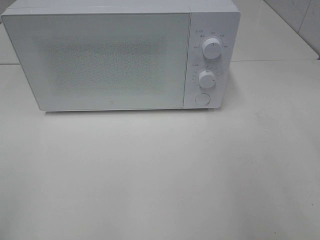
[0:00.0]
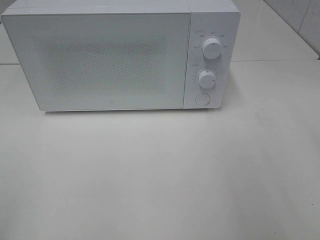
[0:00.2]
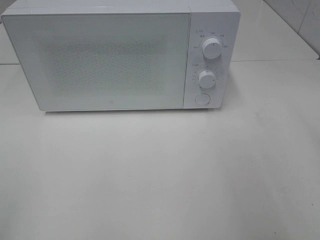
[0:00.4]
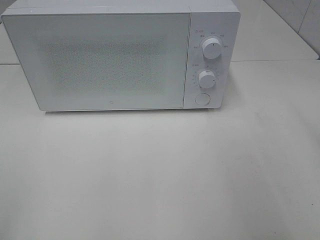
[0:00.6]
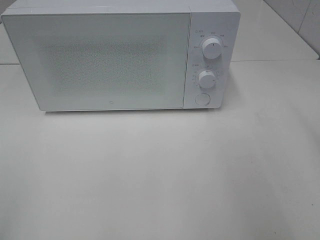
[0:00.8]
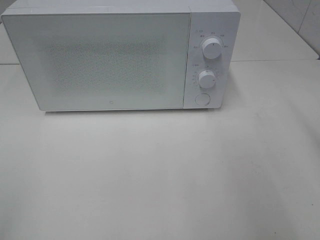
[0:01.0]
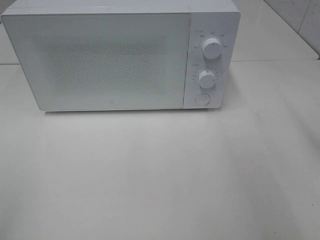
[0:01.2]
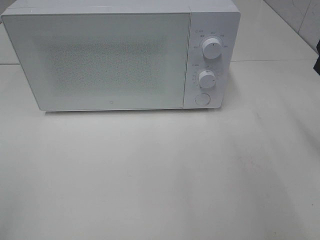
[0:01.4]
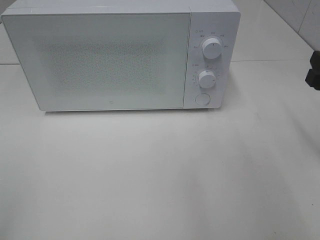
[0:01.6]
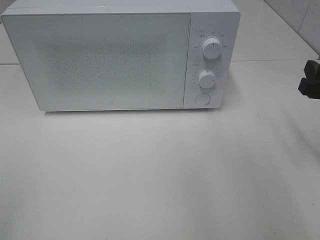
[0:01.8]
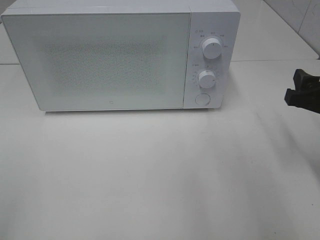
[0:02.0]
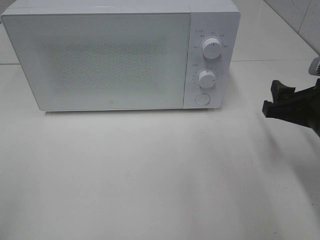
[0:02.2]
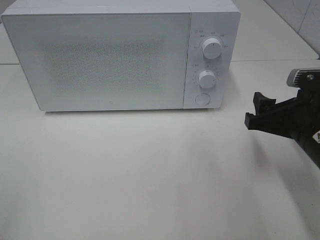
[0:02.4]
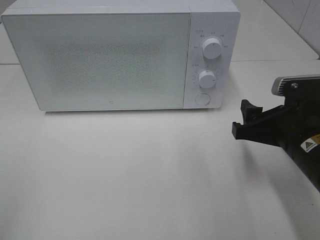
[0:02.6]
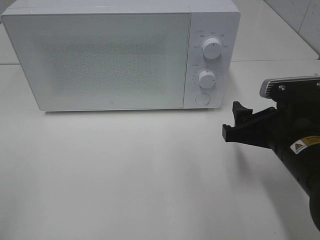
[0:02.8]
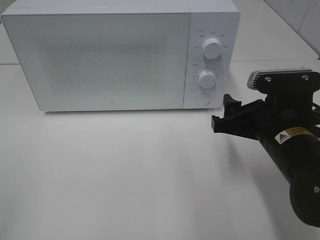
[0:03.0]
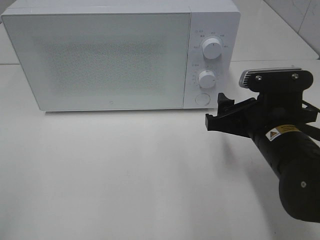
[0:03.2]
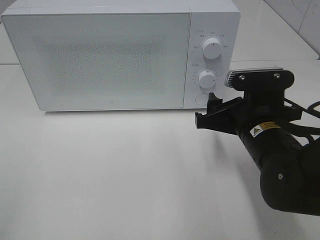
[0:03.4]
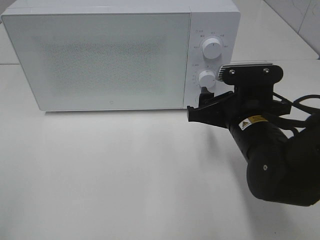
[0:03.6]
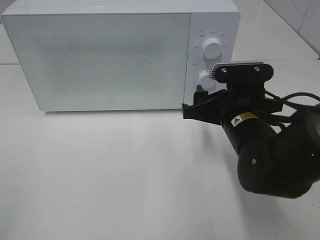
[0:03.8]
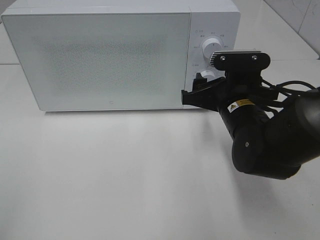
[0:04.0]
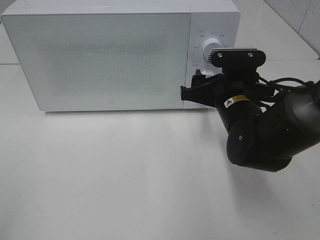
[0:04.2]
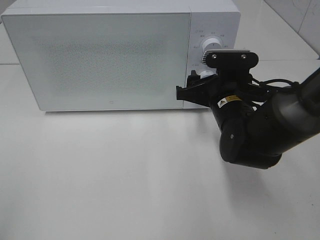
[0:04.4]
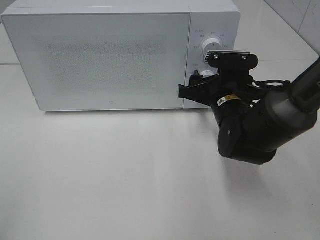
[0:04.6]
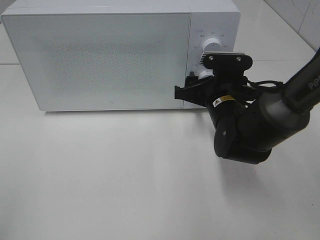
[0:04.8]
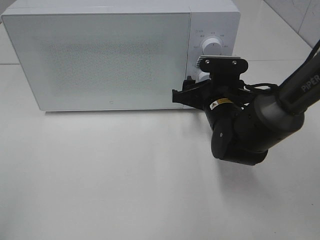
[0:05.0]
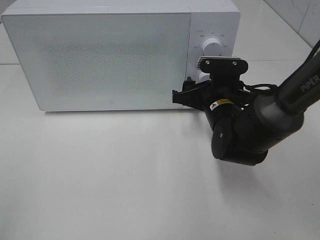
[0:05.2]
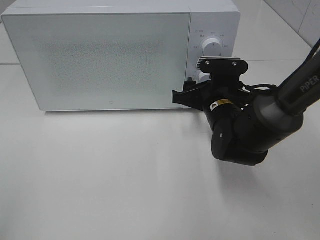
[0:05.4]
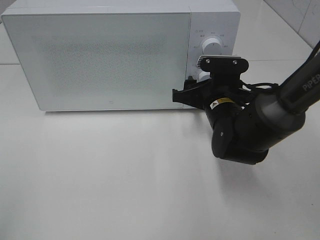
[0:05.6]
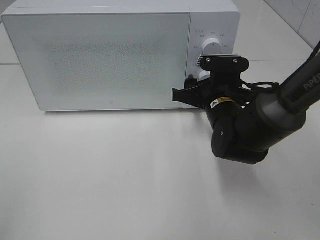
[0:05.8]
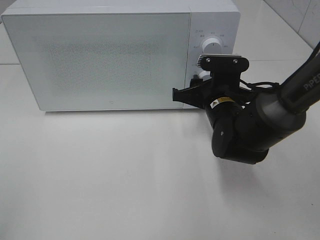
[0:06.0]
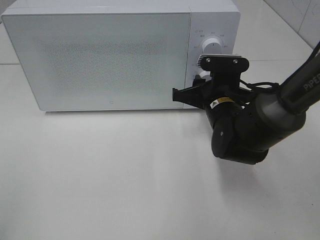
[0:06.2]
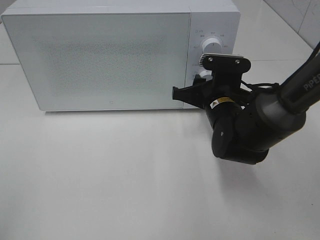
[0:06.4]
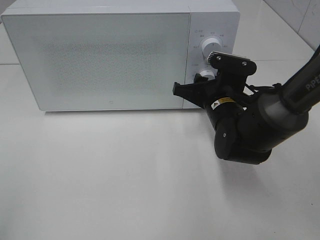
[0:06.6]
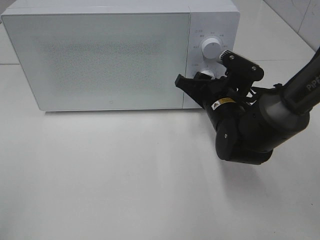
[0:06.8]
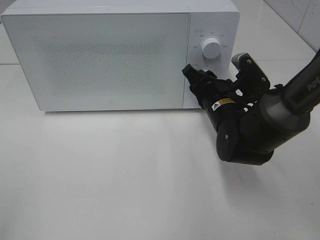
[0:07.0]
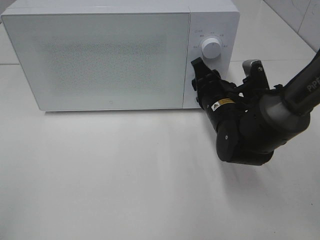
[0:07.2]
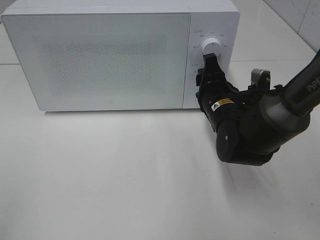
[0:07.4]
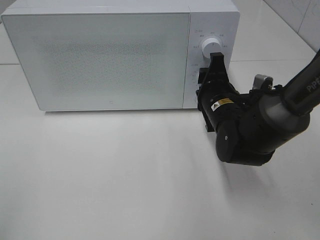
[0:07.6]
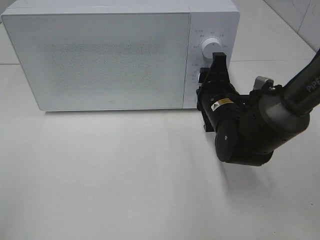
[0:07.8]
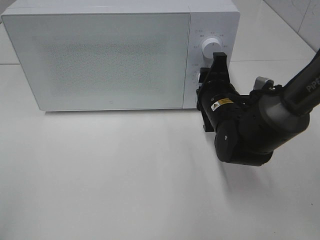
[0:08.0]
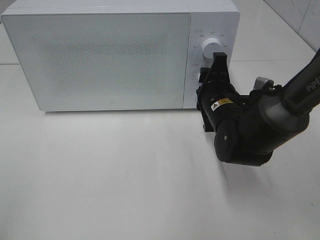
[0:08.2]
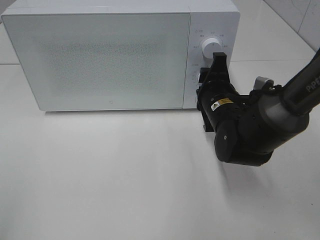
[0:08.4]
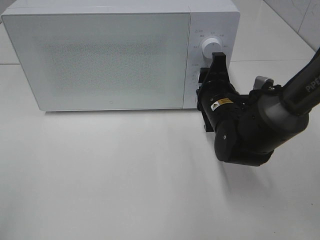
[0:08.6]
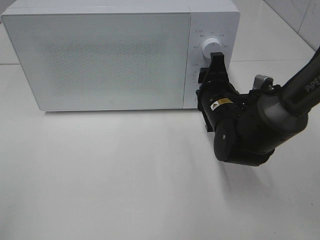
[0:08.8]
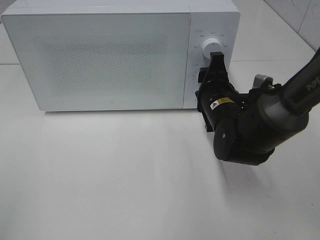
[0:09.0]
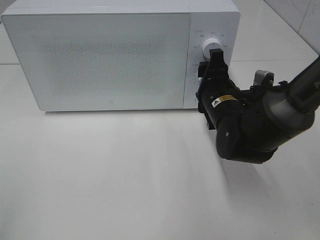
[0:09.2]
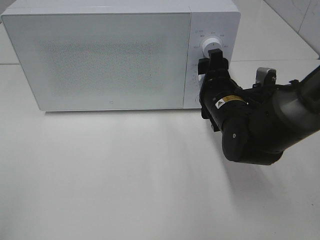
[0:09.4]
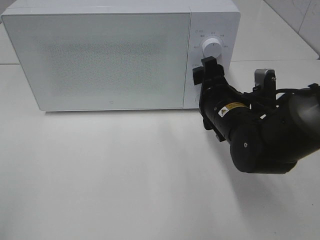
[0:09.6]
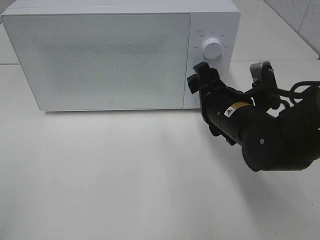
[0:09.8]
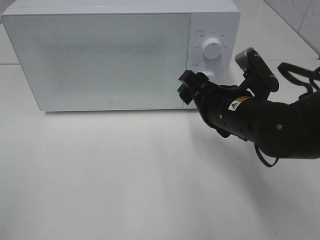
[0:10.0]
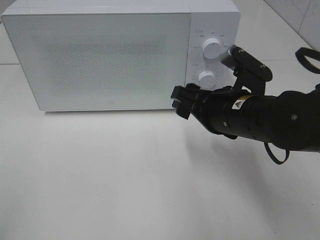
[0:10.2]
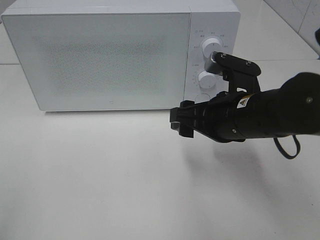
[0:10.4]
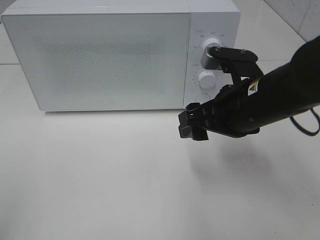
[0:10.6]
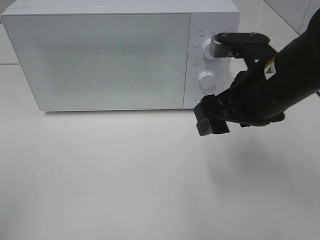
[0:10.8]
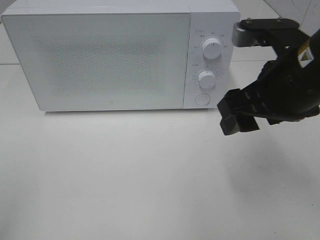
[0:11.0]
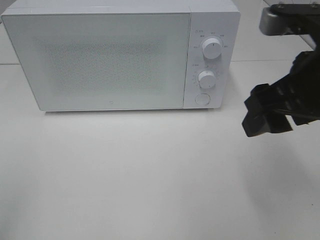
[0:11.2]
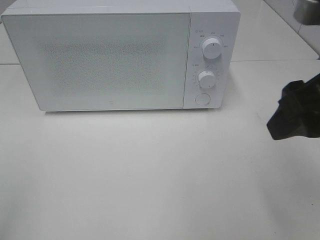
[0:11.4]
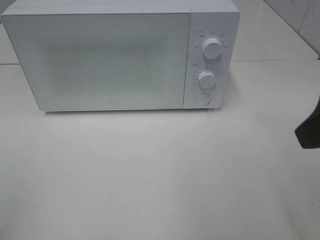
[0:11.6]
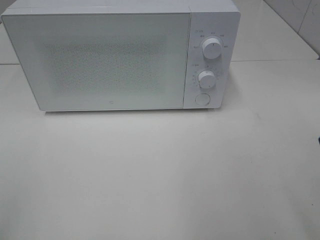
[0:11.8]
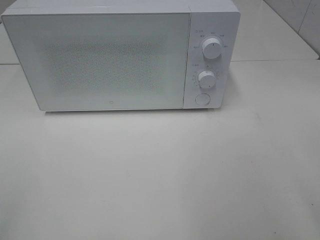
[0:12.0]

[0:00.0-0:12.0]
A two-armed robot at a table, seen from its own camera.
Task of the whole recording: Heat the burger.
Step, 0:00.0 to 0:09.2: Right hand: twist timer button.
0:00.0 to 0:01.6: The right gripper heads forward and downward, covering roughly 15 cm.
0:01.6 to 0:03.0: The right gripper shifts some 15 cm to the left.
0:03.0 to 0:04.4: The right gripper is displaced forward by some 10 cm.
0:04.4 to 0:06.0: The grippers make only small movements.
0:07.6 to 0:09.0: Both grippers stay about where they are.
0:09.0 to 0:10.4: The right gripper travels backward and upward by some 10 cm.
0:10.4 to 0:12.0: The right gripper moves backward, upward and to the right, approximately 25 cm.

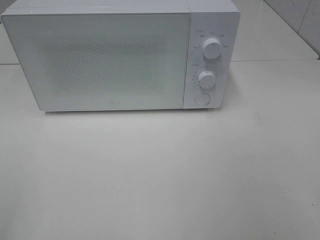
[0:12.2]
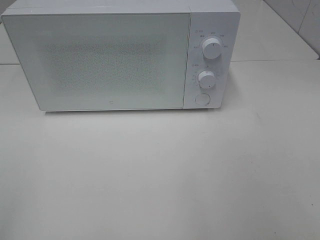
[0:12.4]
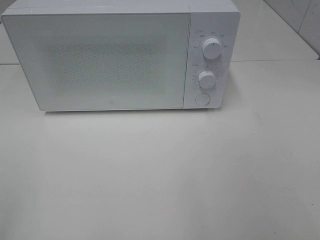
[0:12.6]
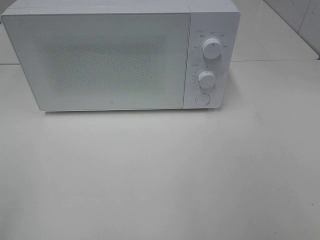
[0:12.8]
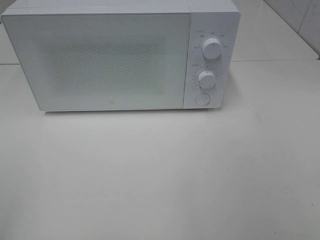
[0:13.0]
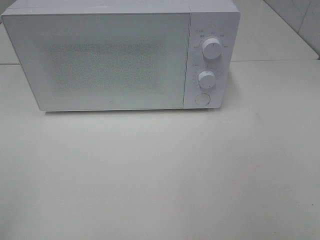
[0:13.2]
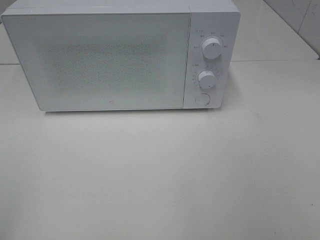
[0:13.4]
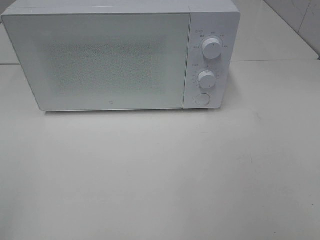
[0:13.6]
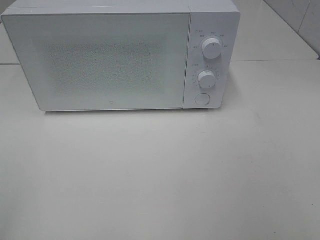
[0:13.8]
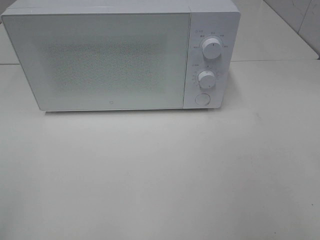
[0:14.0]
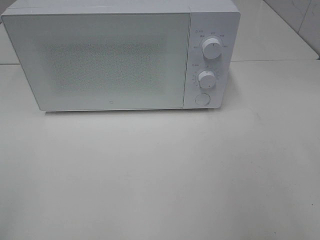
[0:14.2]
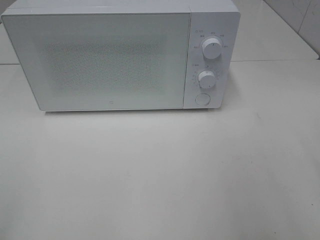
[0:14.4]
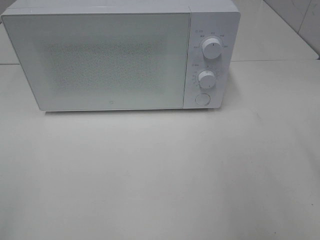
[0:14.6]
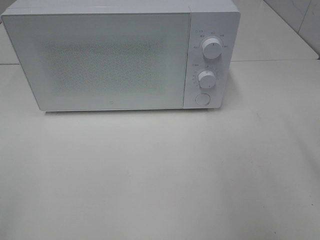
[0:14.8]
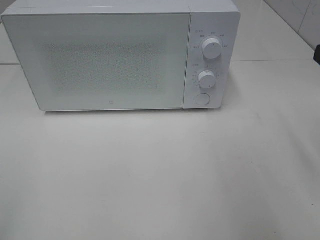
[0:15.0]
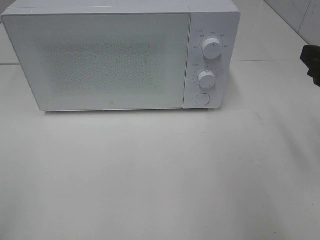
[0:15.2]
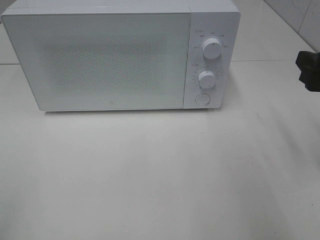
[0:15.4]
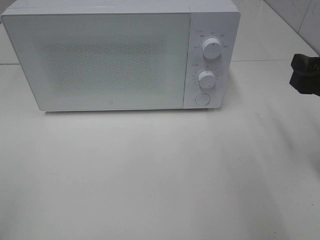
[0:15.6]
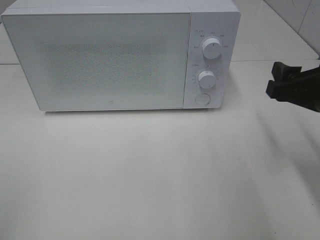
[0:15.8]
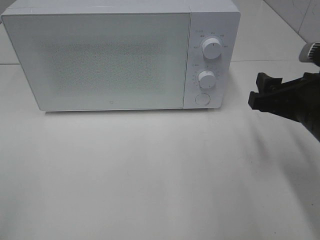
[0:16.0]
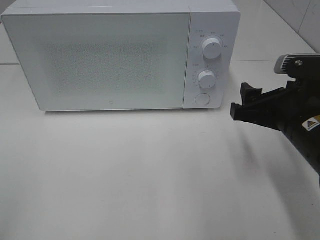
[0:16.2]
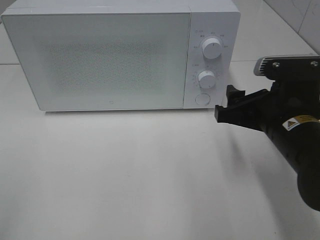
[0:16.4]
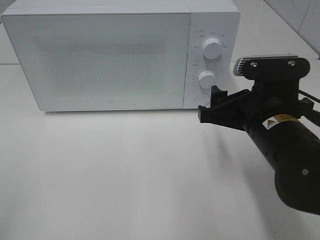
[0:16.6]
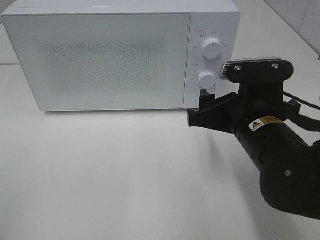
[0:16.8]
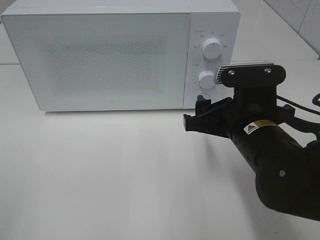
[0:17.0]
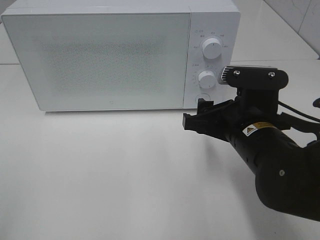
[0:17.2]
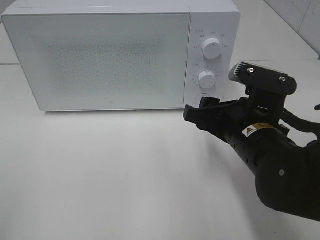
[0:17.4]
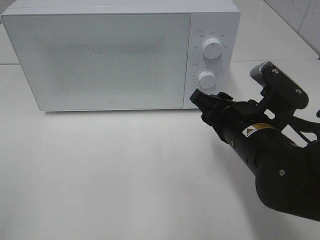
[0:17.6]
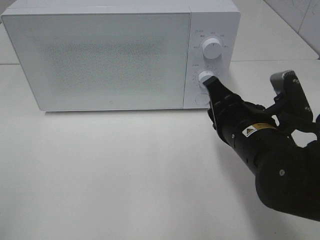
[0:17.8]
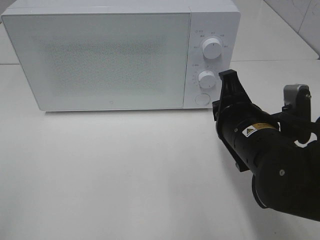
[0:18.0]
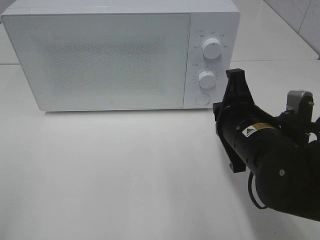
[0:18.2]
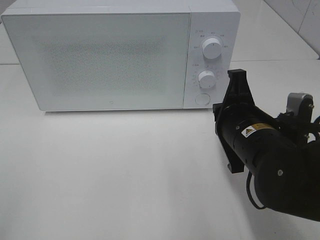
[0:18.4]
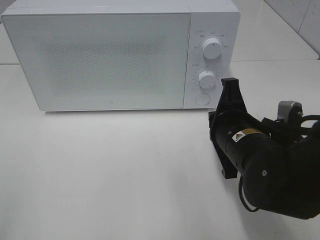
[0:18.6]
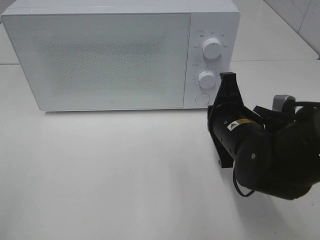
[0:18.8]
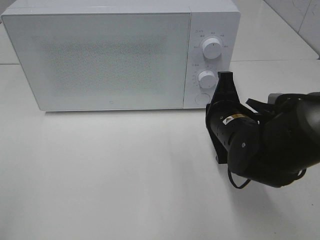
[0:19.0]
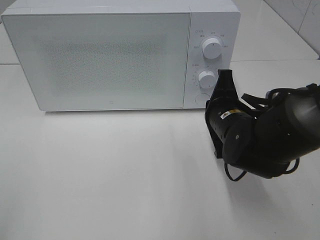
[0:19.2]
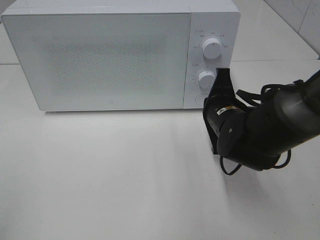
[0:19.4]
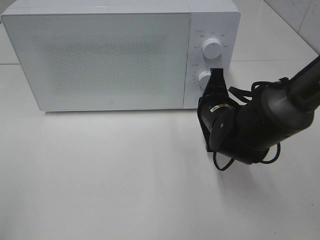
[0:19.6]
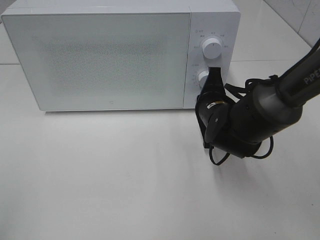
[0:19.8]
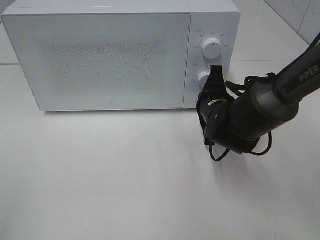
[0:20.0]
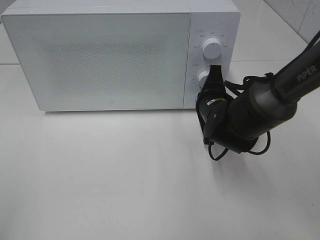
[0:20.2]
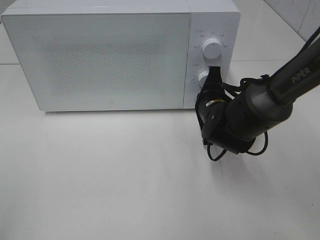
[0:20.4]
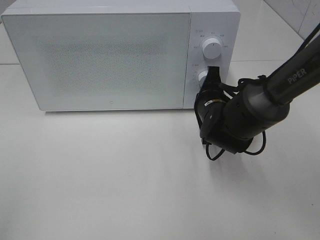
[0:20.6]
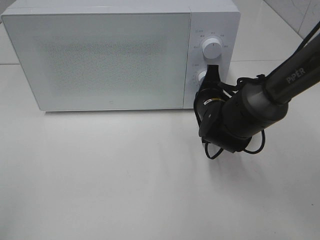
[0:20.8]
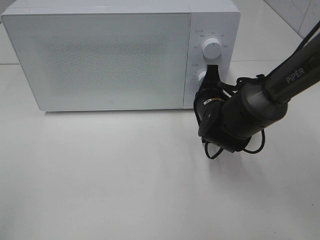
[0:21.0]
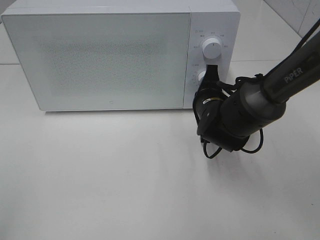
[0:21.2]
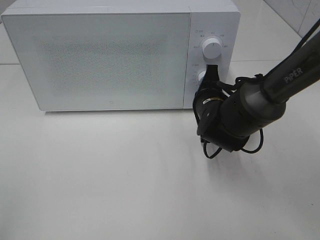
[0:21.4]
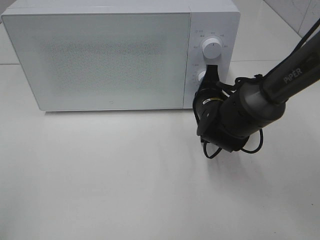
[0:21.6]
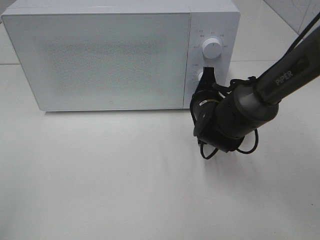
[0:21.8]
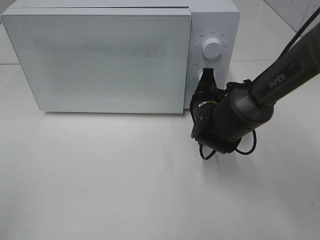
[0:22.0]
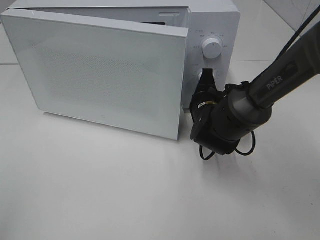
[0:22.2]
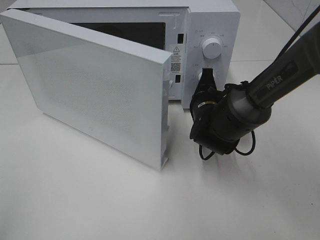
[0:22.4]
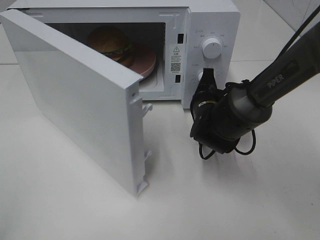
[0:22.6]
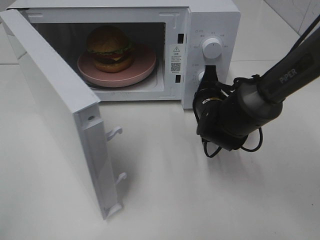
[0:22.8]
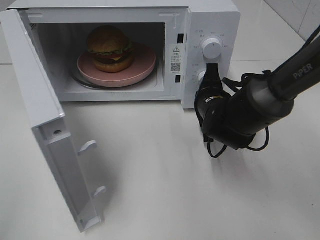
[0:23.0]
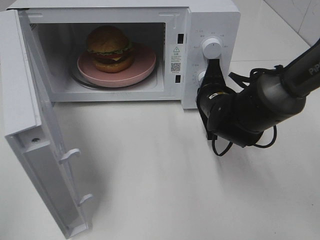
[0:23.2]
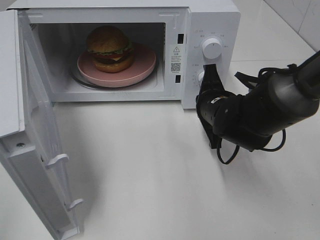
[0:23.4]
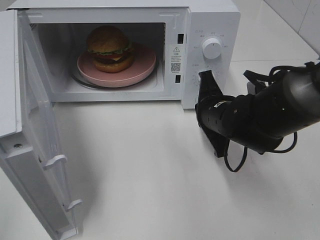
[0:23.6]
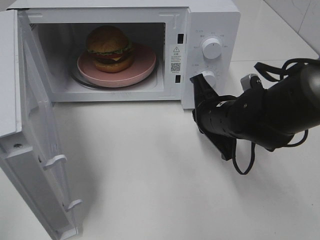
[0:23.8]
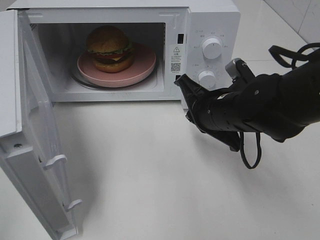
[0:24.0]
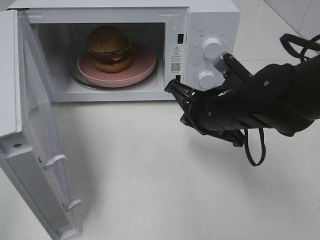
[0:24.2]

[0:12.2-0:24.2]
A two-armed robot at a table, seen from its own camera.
Task of the whole recording: Heat the burger.
Step, 0:12.2 to 0:23.2: Right hand: press the switch.
0:13.8 to 0:15.2: The right gripper goes approximately 20 cm forward.
0:15.2 to 0:16.6: The right gripper shifts approximately 15 cm to the left and downward.
0:16.6 to 0:18.2: The right gripper closes up.
0:18.2 to 0:19.8: The right gripper travels forward and downward by some 10 cm.
0:19.8 to 0:21.2: There are only small adjustments of the grippers.
0:22.6 to 0:24.2: The right gripper heads backward and upward, covering about 10 cm.
